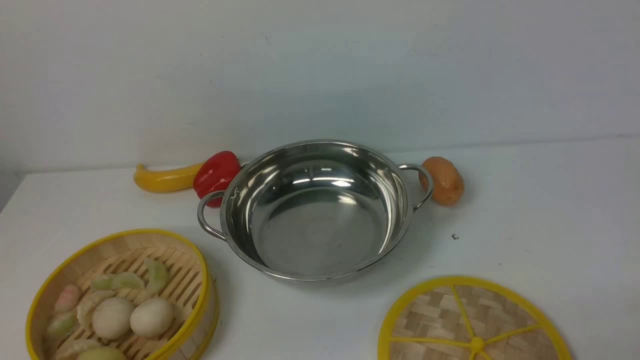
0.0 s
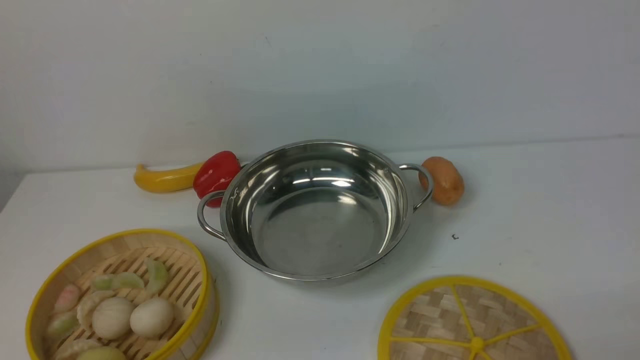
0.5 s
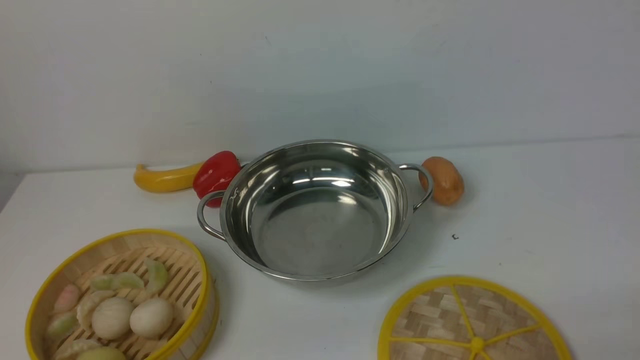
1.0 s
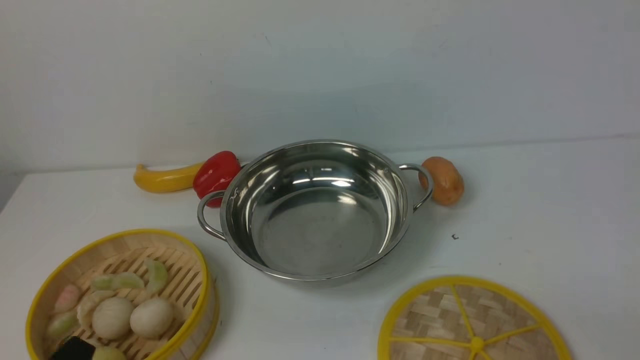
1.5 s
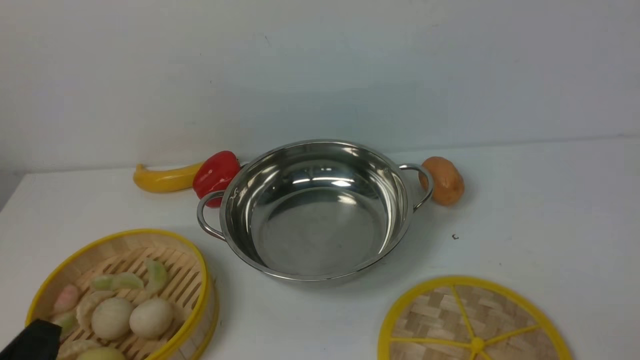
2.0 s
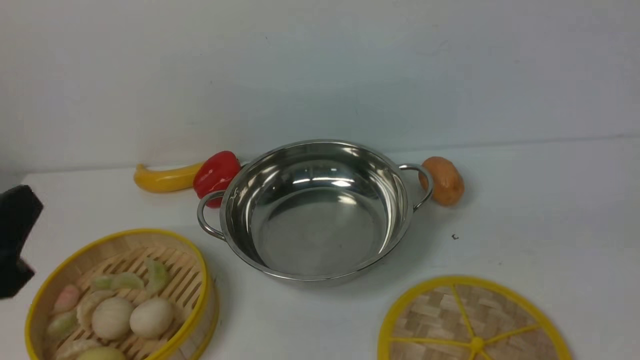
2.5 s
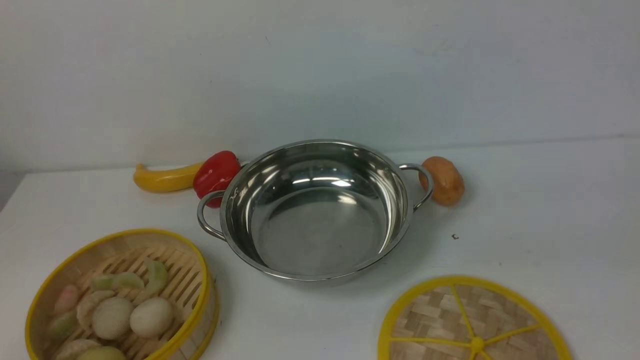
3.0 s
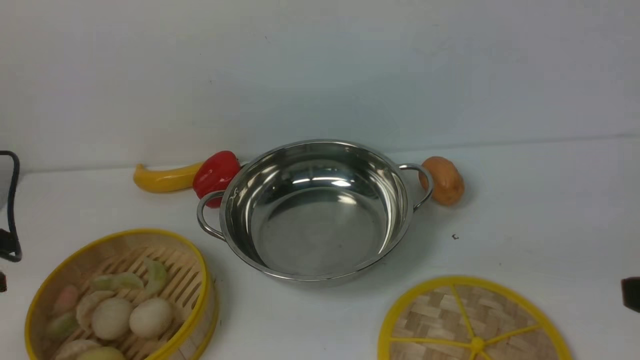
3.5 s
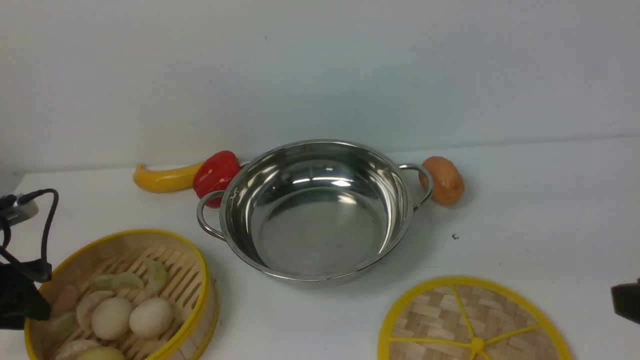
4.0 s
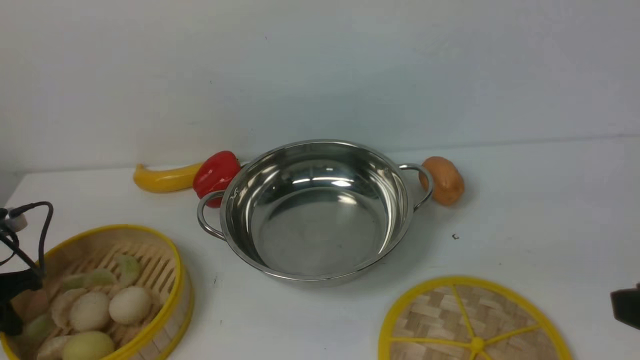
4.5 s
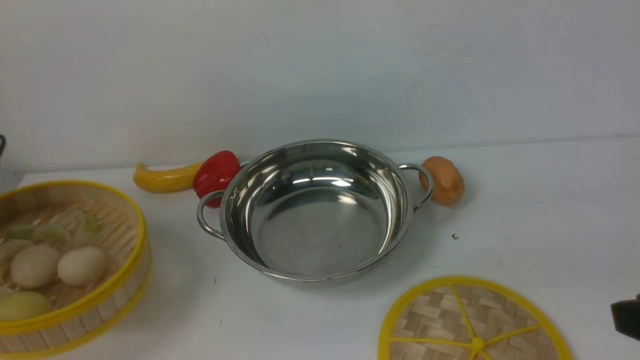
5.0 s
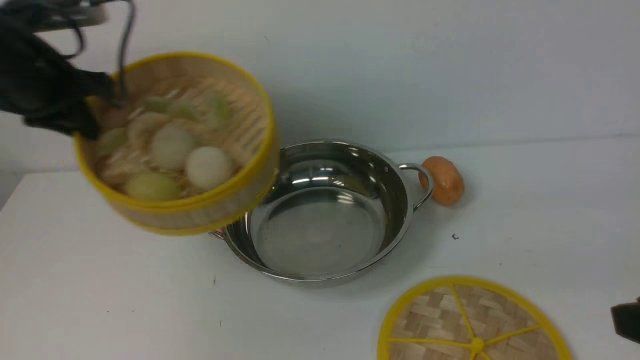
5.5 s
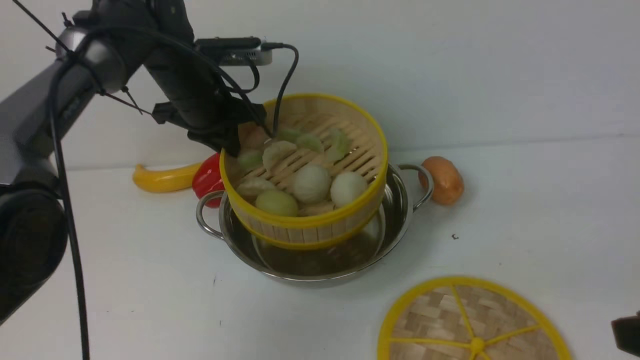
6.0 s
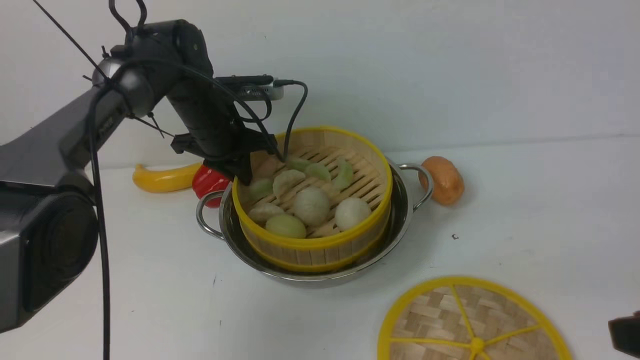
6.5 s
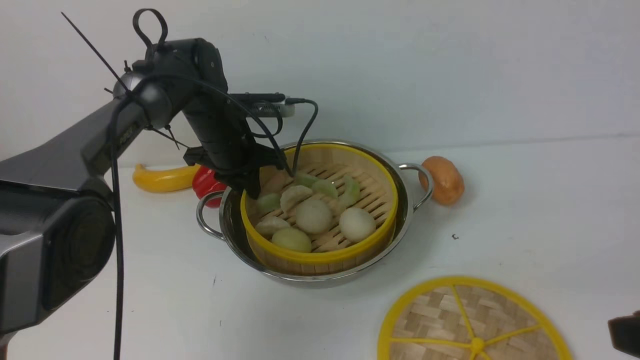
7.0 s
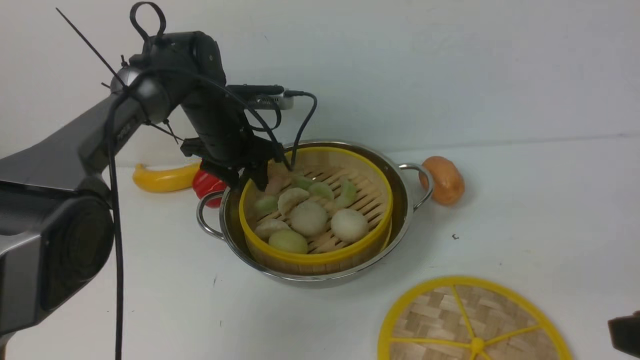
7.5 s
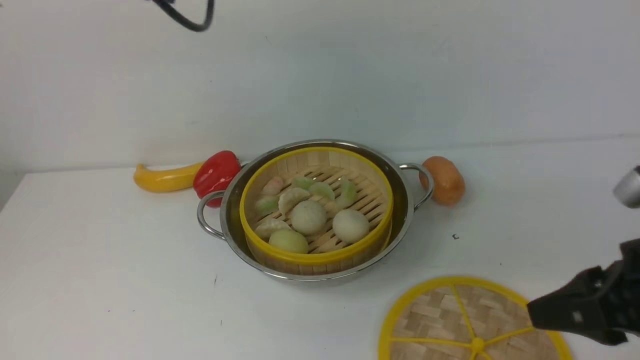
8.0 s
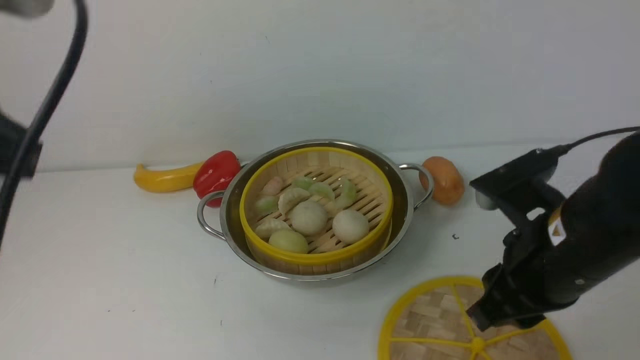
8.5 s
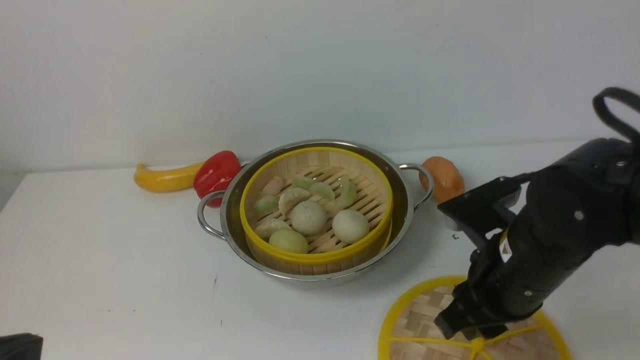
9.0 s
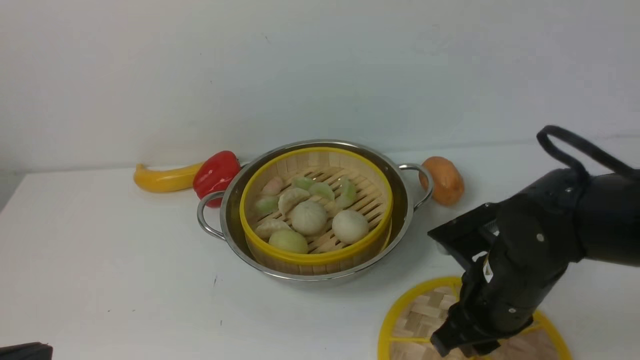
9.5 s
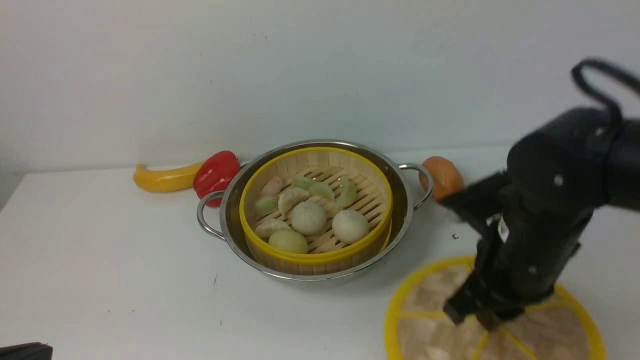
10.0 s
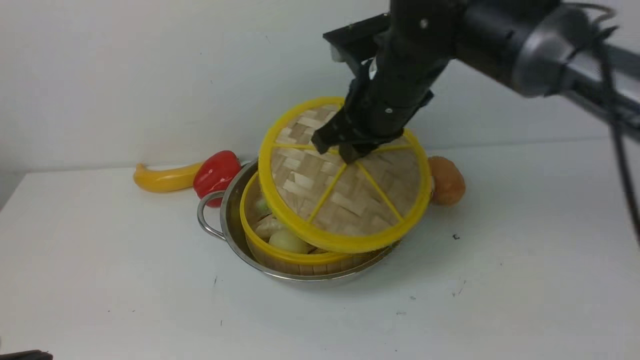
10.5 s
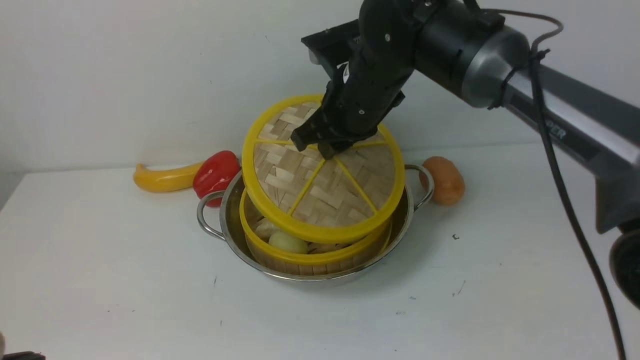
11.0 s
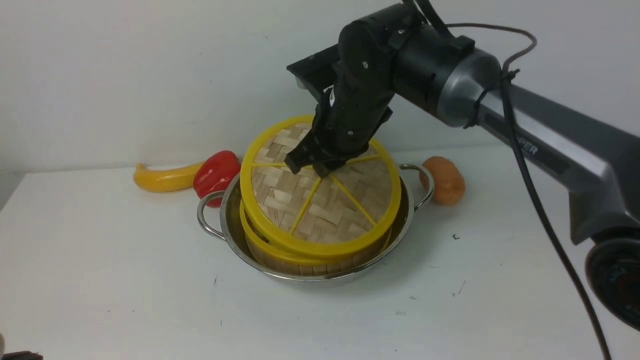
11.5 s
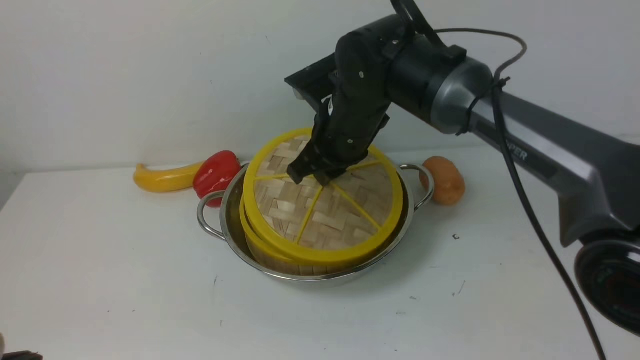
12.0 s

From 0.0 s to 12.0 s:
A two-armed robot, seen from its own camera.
Task of the whole recording: place the steamer in the pot on the white table, and put the lid on the steamer.
Step, from 0.0 s to 5.0 s: use the left arm to lift the steamer closest to it.
Step, from 5.5 s to 7.5 s: use the left arm to put the steamer into the iron steamer pot in the middle.
Step, from 8.0 s to 9.5 s: use the right arm to lift the lid of the steamer.
From 2.0 s to 4.0 s: The left gripper is displaced forward and to the left by approximately 25 cm.
From 4.0 s to 6.0 s: The left gripper is displaced to the right and forward by about 30 cm, and closes its fingers.
From 6.0 s to 8.0 s: The right gripper heads forward, covering roughly 5 cm. Meanwhile the left gripper goes roughly 20 cm upward and backward, and opens up.
From 8.0 s to 10.0 s: The right gripper is displaced to the left and forward by approximately 15 cm, while the left gripper is displaced backward and downward by roughly 35 cm, and closes its fingers.
From 10.0 s to 12.0 s: The right gripper heads forward and to the left, covering some 20 cm.

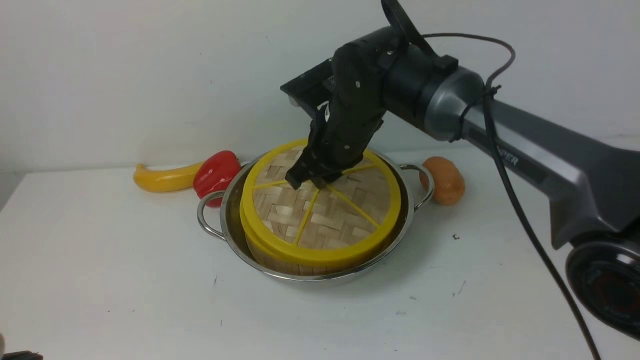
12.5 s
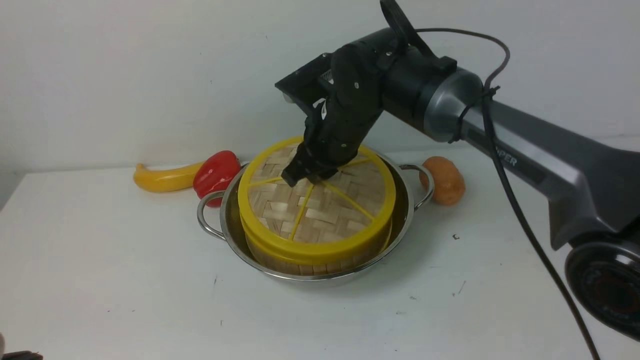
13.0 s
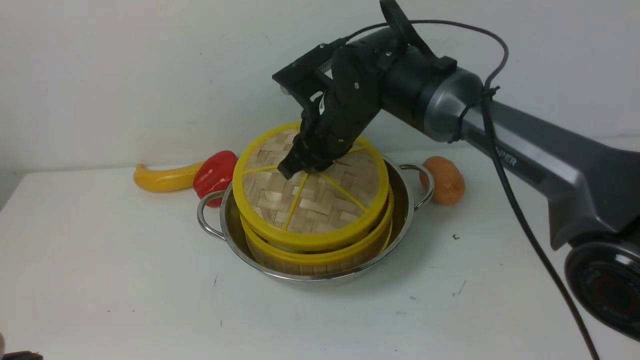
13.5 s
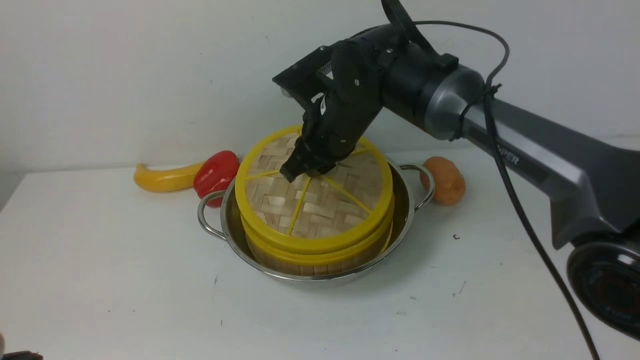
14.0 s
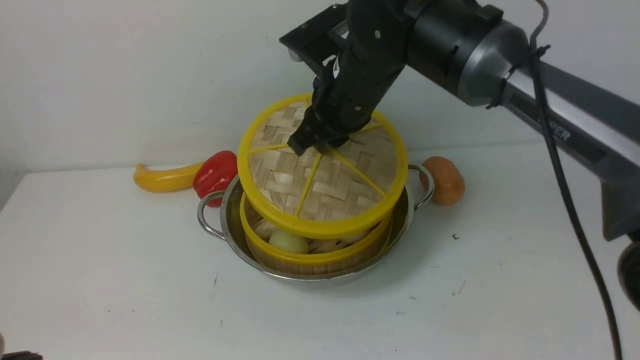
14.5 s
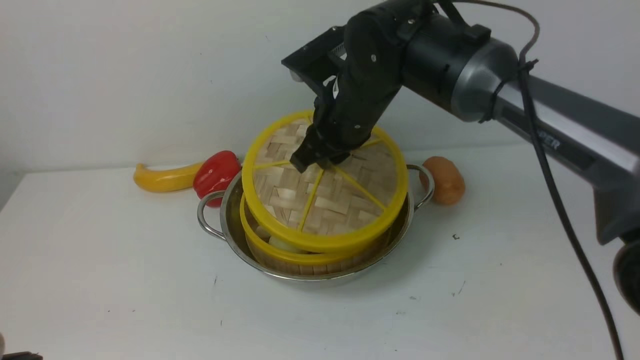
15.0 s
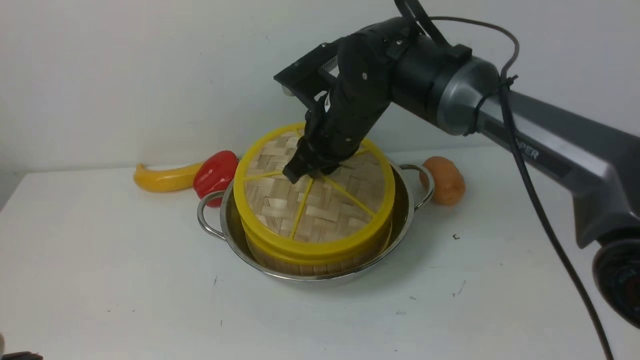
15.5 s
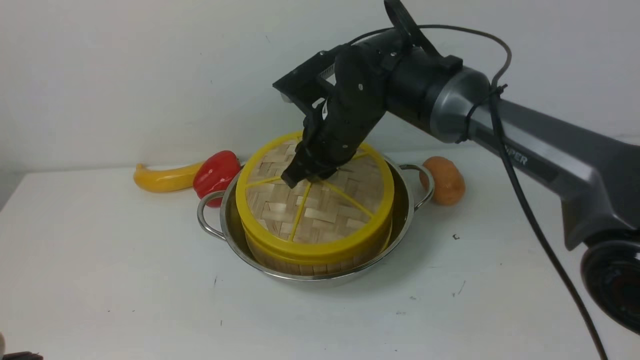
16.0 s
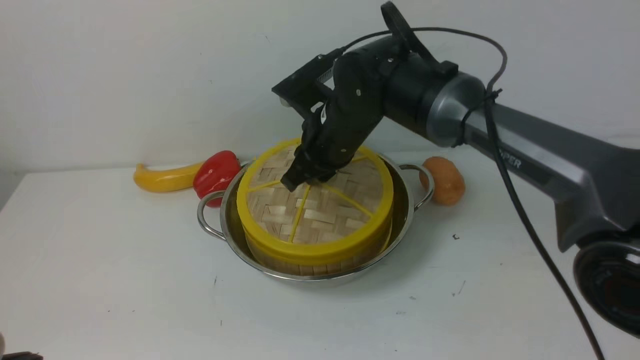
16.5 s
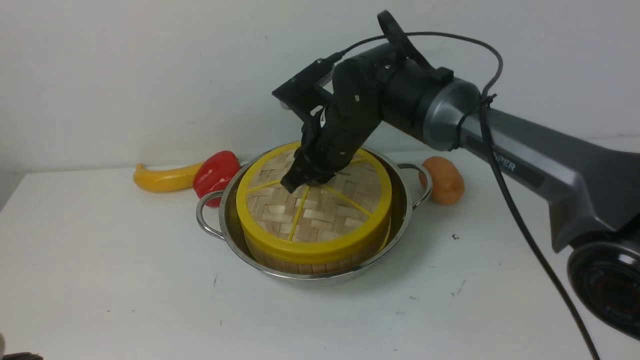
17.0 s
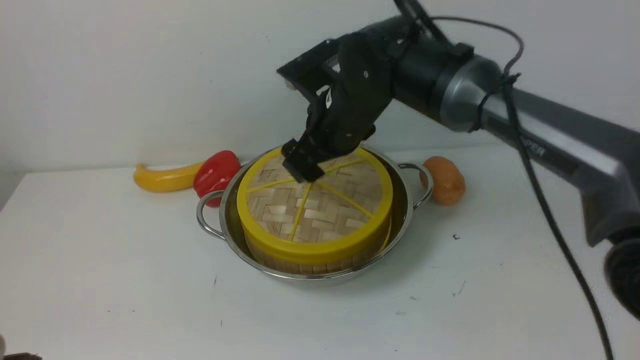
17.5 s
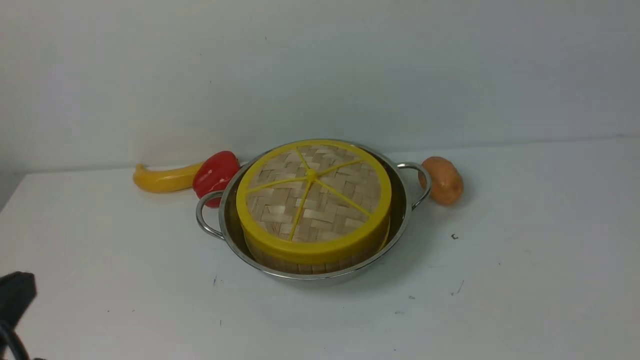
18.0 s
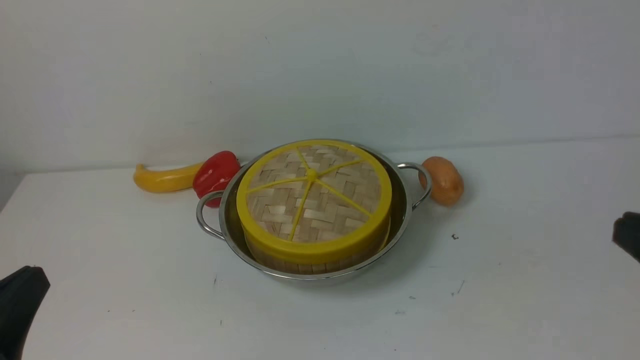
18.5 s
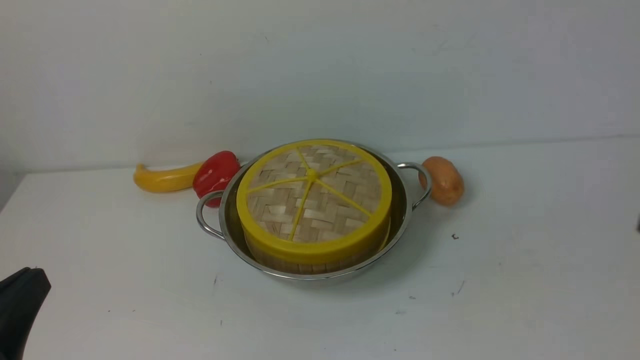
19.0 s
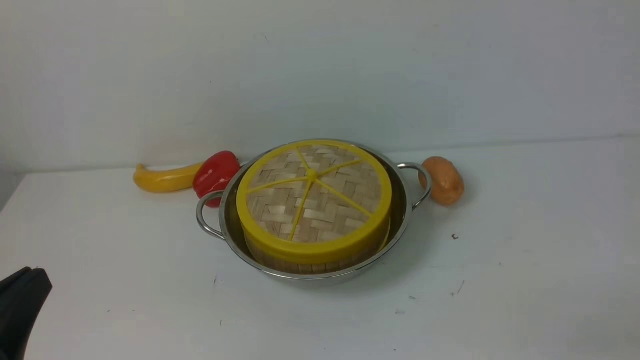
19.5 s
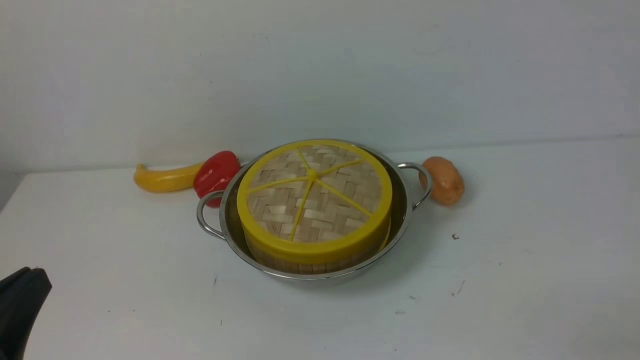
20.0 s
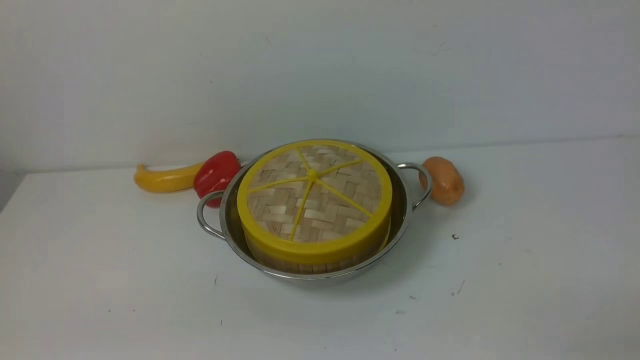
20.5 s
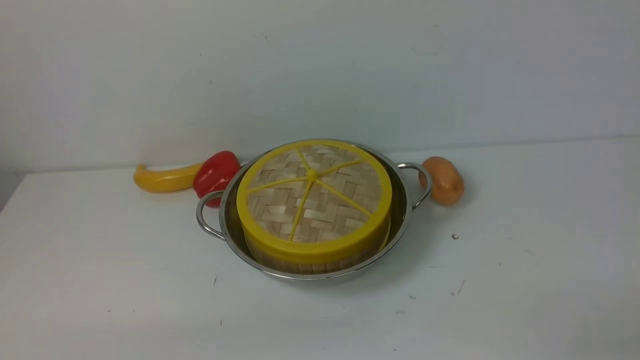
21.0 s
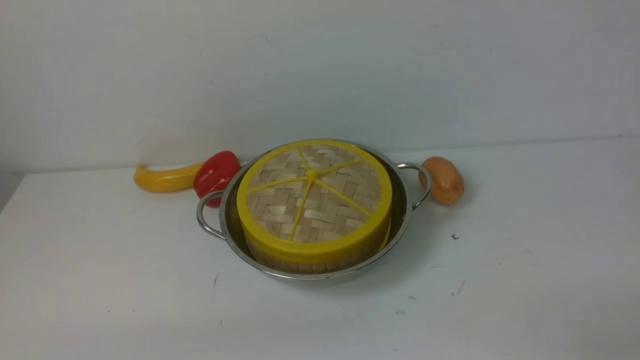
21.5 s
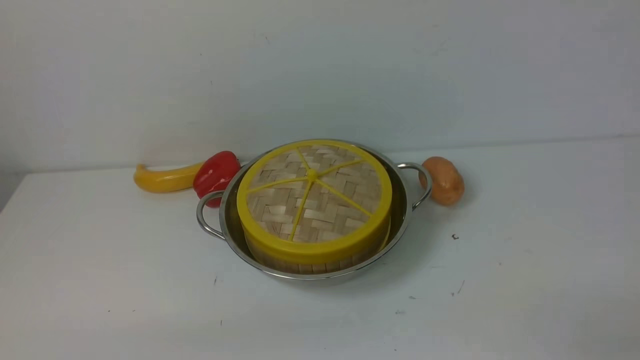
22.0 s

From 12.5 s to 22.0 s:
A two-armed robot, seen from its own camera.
Task of the whole recording: place the steamer in the pot on the white table, and put the lid on the steamer.
Step, from 12.5 s to 18.5 s: use the right arm to place the steamer lid on the steamer.
From 12.5 s to 14.5 s: The right gripper shifts by about 5 cm.
From 14.5 s to 16.5 s: The right gripper goes some 5 cm downward.
From 16.5 s to 18.0 s: The right gripper moves upward, backward and to the right, about 35 cm, and opens, then closes once more.
From 20.0 s to 22.0 s: The left gripper goes about 10 cm downward.
